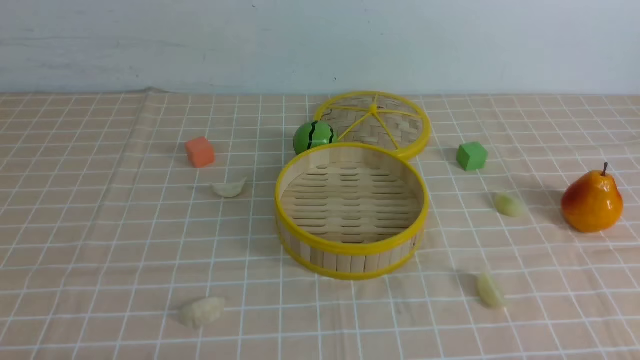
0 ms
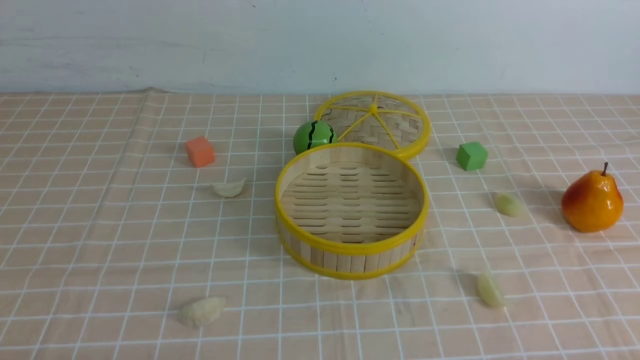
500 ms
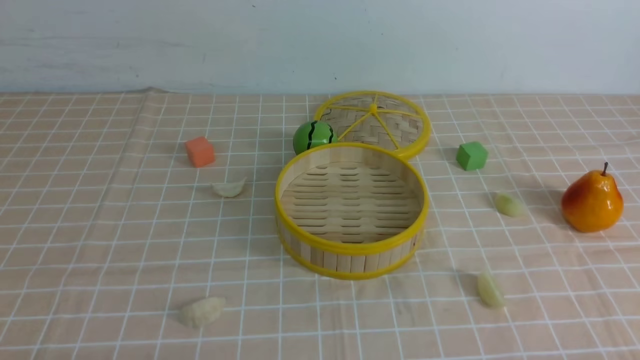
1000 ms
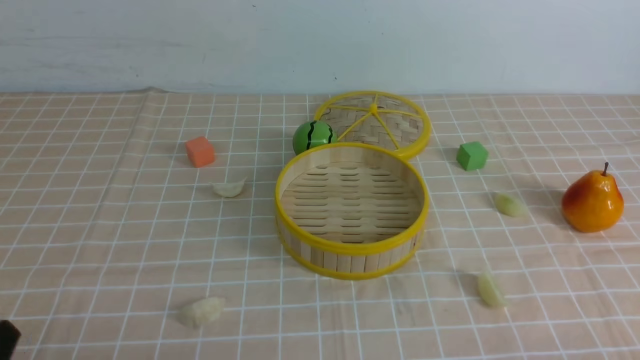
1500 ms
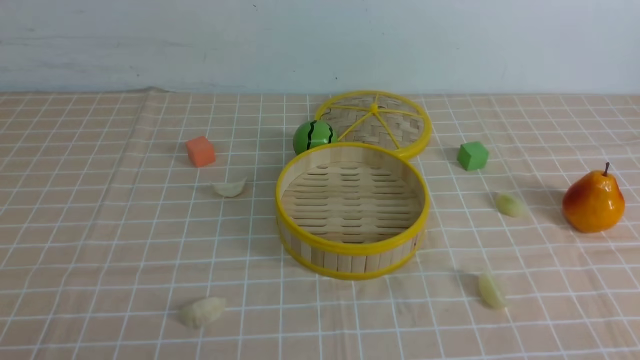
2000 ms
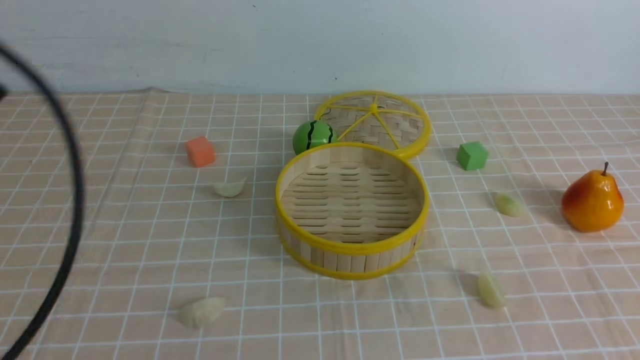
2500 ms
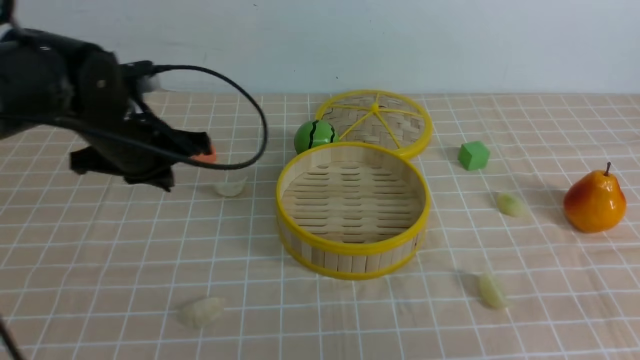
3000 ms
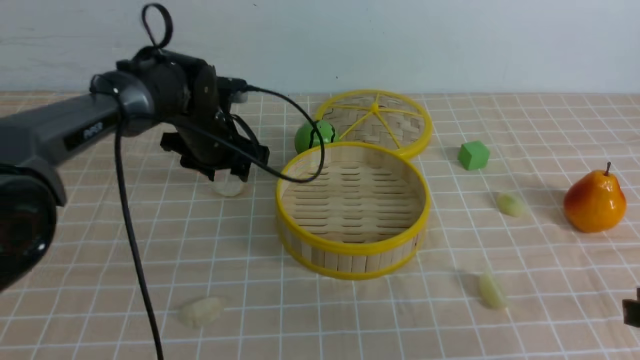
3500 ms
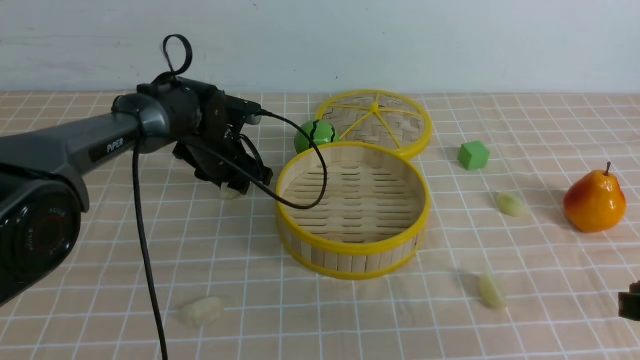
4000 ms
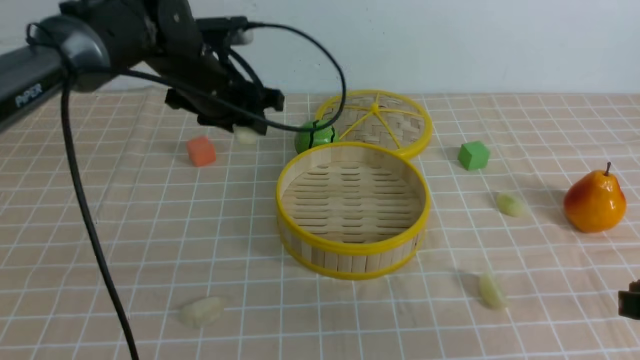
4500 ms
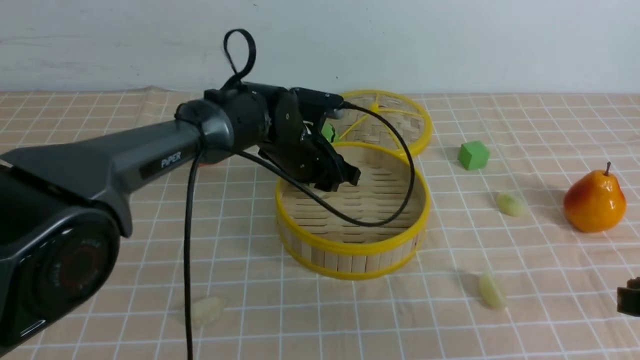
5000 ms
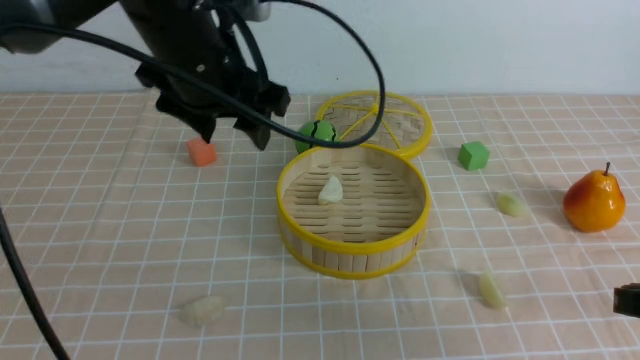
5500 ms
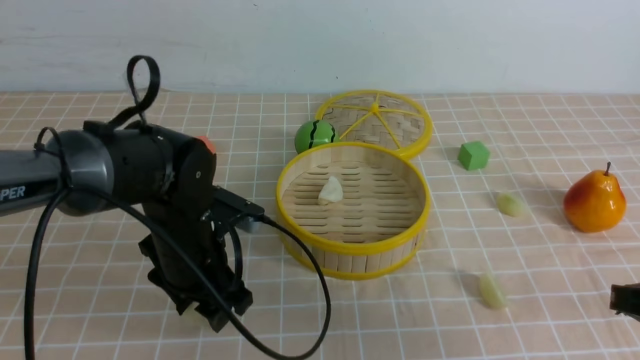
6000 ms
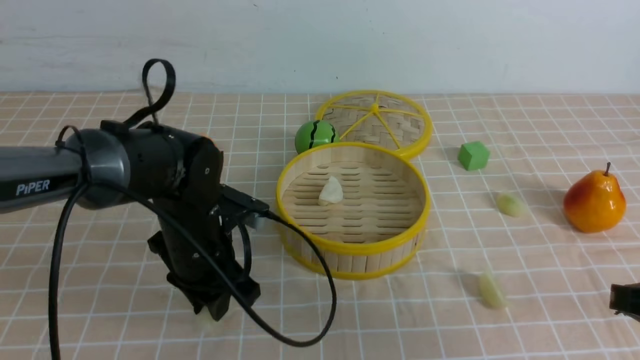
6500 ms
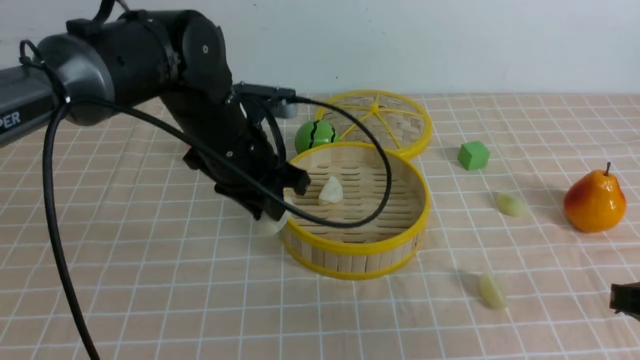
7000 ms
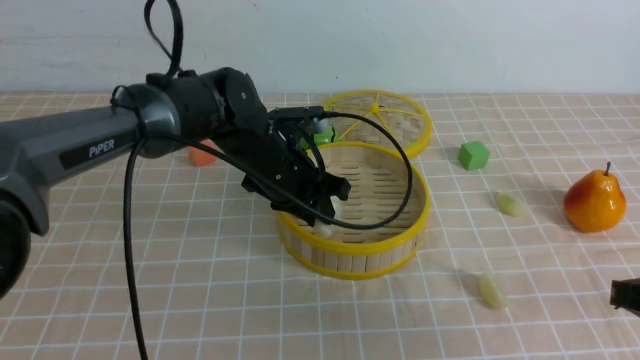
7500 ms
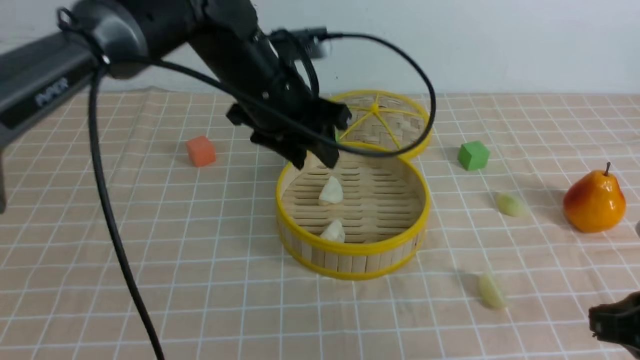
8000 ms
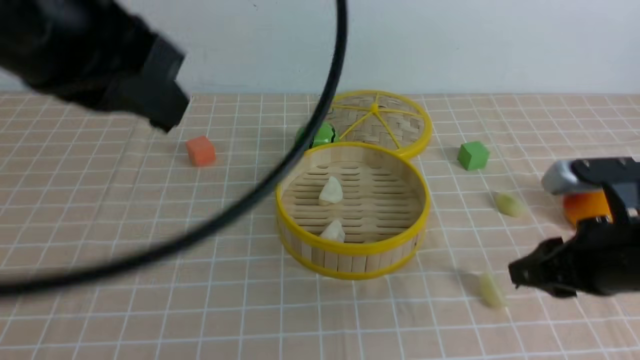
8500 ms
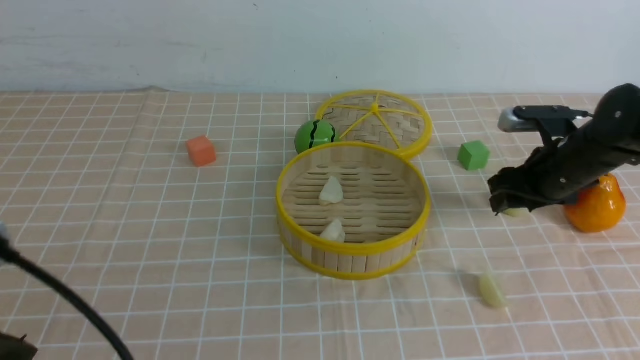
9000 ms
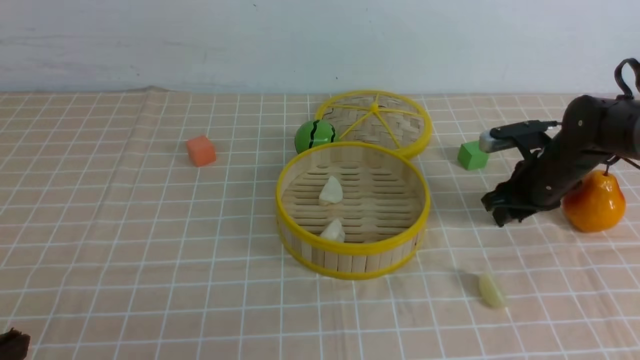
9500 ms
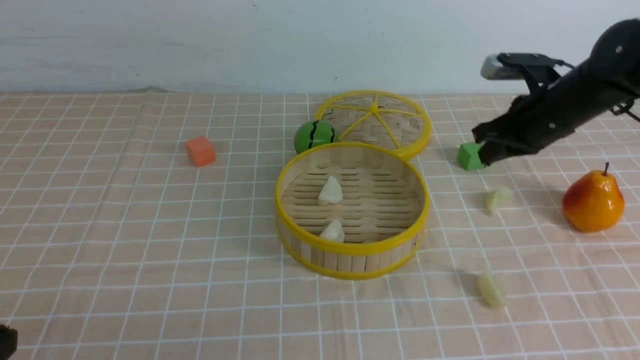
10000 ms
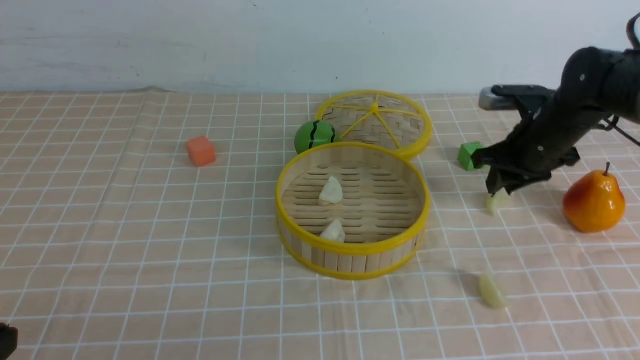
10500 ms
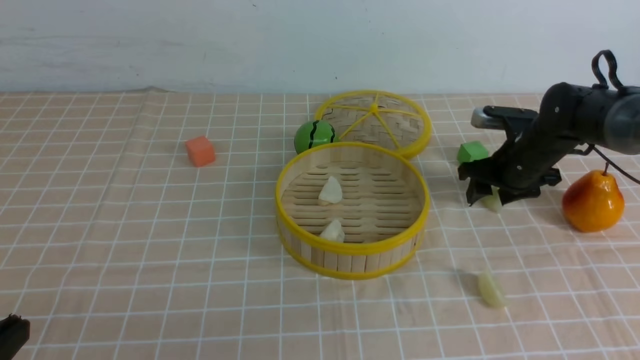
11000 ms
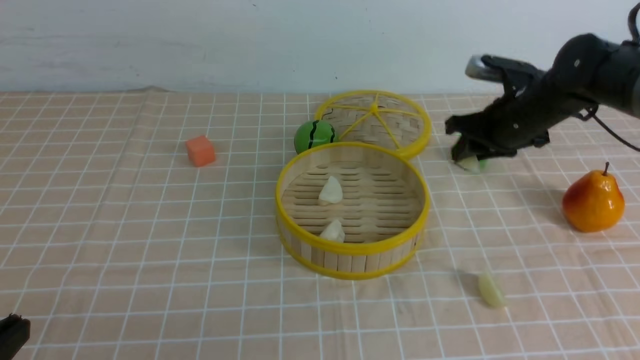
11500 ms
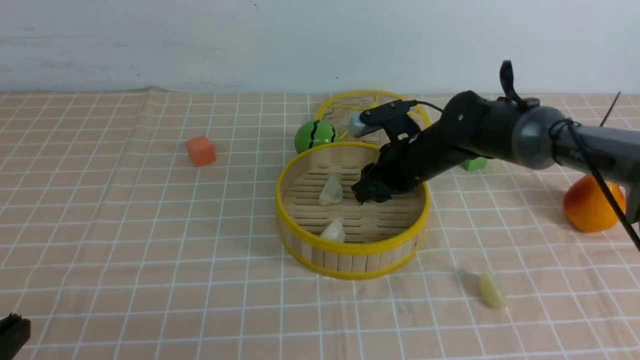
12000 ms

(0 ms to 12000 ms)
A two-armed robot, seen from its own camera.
Task of the whole recording: put the dumplings into the steamer on the table with the brown tablecloth.
Step, 0 ms - 4000 ms: use the left arm to grab a dumpling.
Step, 4500 ms - 5000 ms: use the left arm to put the dumpling into the steamer.
Step, 5500 ms - 6000 ms: use the left arm to grab a dumpling.
Step, 6500 ms - 7500 ms: use the left arm to put the dumpling into the steamer.
Step, 8000 ms - 11000 ms: use the right arm to grab a dumpling.
2000 ms - 4000 ms: The left gripper travels forward by some 40 cm, and closes, then opens again; the right gripper is displaced forward by approximately 15 cm, and closes.
4000 ms - 6000 ms: The left gripper is displaced backward by about 15 cm.
6000 ms - 8000 ms: The left gripper goes up and down, about 15 cm each way, reversing 2 times.
8000 ms - 10000 ms: The left gripper moves backward and to the left, about 35 cm, and closes; the right gripper travels forward by approximately 30 cm, and opens, then closes again.
10000 ms - 12000 ms: The right gripper shifts about 10 cm to the left, and opens up.

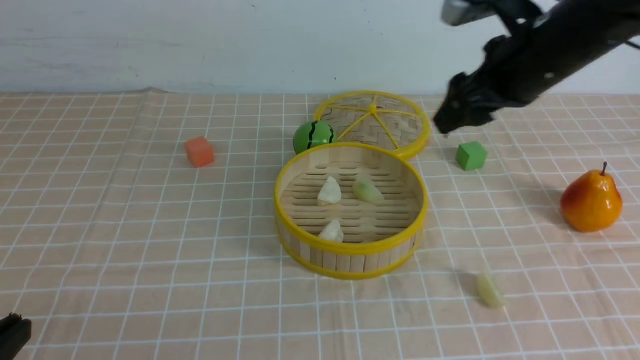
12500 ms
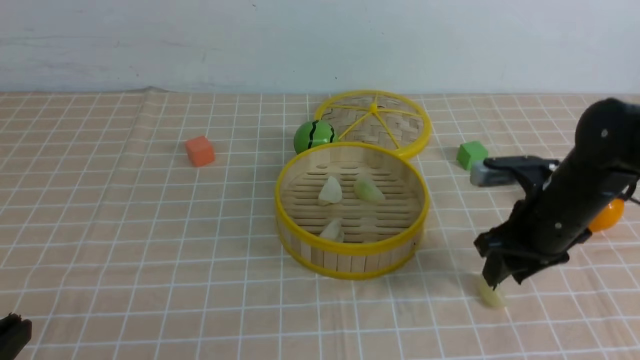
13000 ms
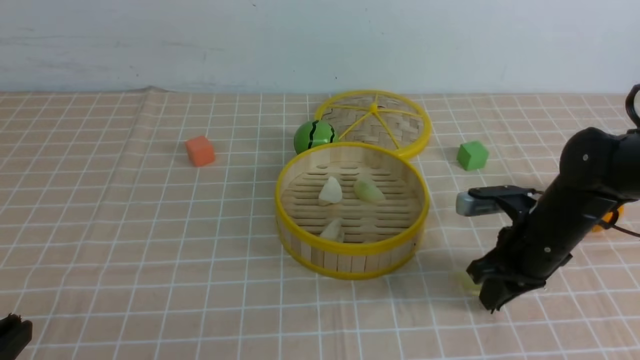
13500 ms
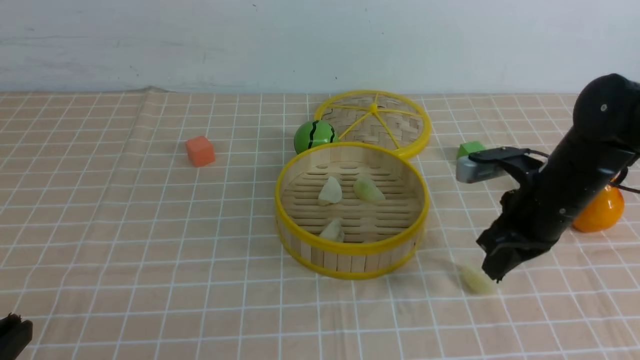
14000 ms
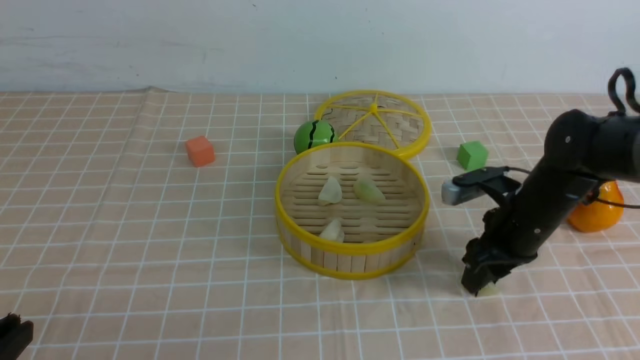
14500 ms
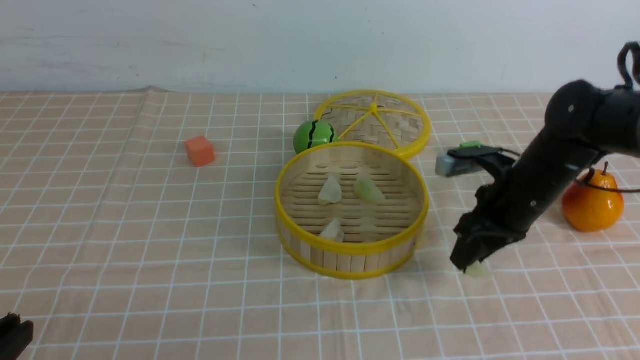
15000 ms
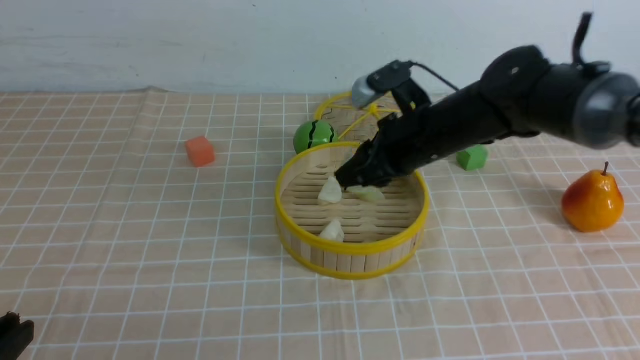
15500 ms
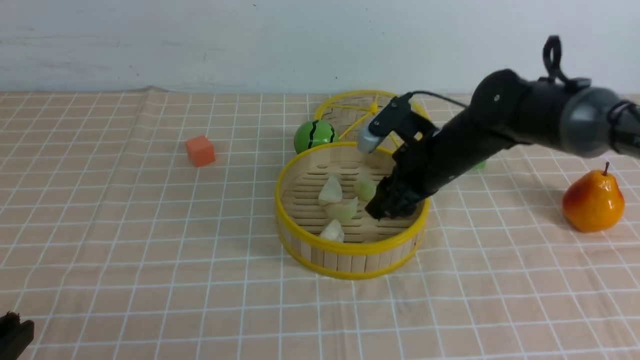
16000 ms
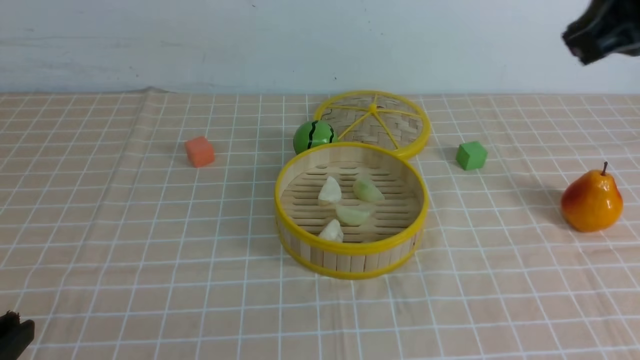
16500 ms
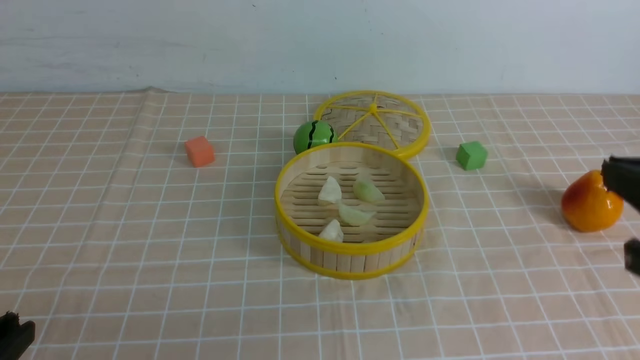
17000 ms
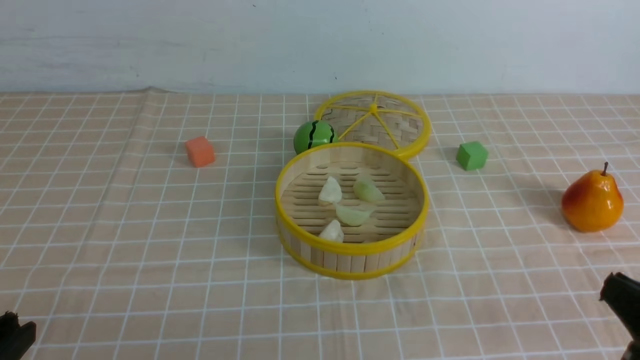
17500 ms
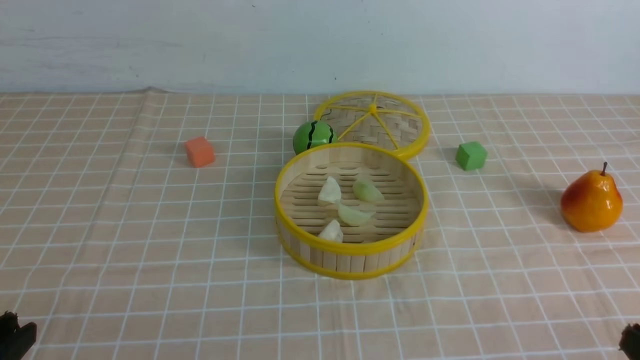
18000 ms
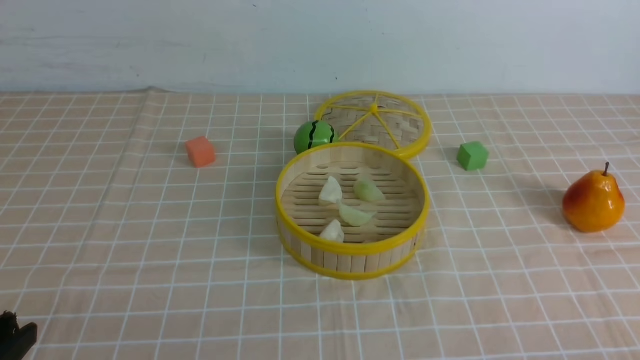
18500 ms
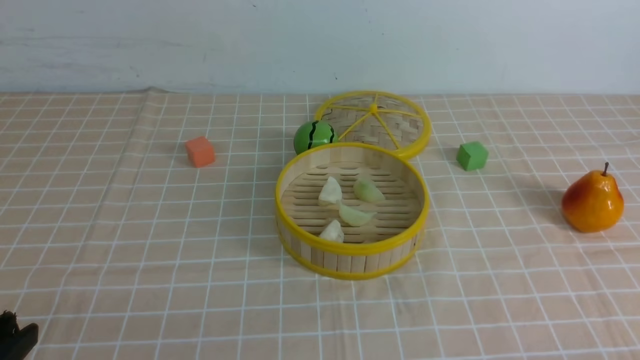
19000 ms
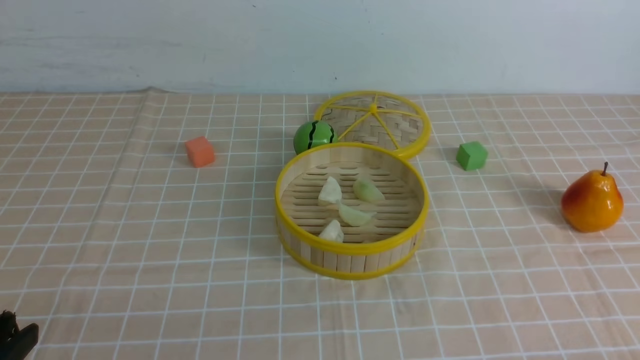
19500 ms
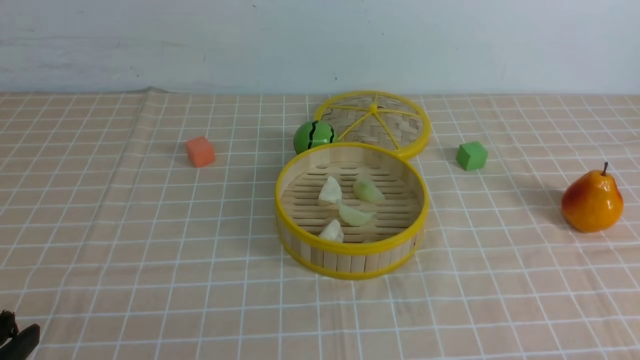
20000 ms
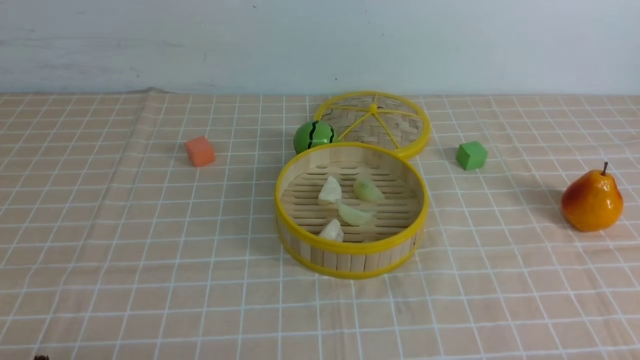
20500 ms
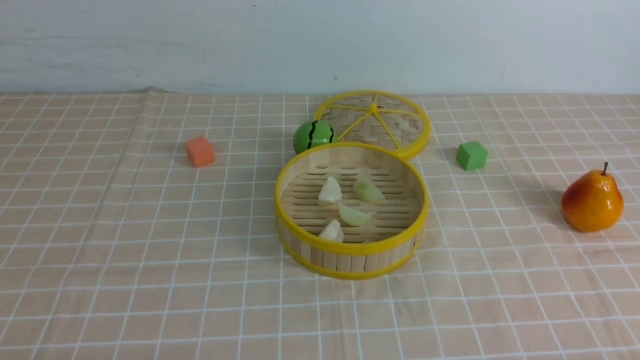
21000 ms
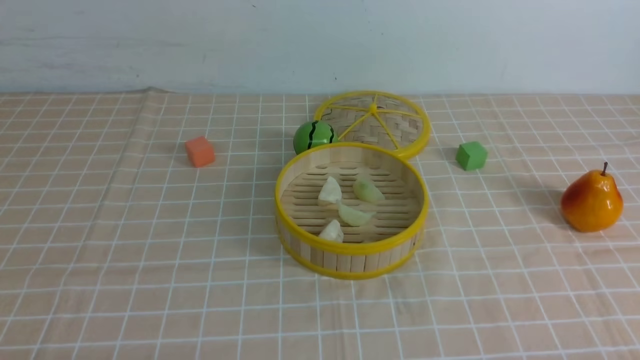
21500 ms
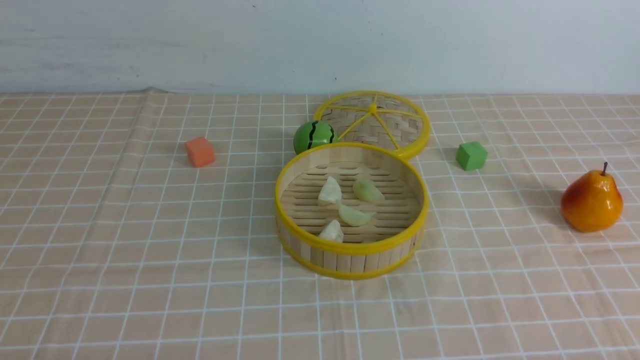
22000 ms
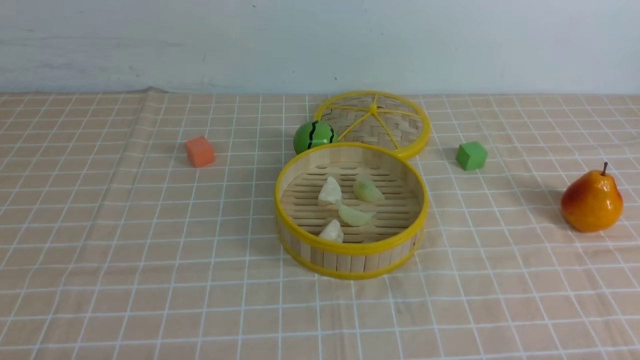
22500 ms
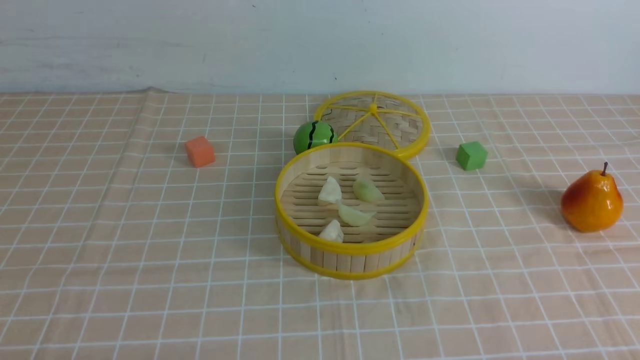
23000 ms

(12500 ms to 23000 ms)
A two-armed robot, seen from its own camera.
Task of the whole recording: put the dumplings into the steamer on the table with the brown tablecloth.
Step, 12500 ms - 14500 ms: use the right arm to grab a dumpling.
Step, 15000 ms - 16000 ms: use the right arm to put the dumpling into the steamer.
12500 ms - 14500 ms: The right gripper shifts approximately 15 cm downward, and closes up.
14500 ms - 16500 ms: The right gripper is displaced upward and backward by approximately 30 cm, and closes.
16500 ms - 19000 ms: The right gripper shifts roughly 35 cm downward and backward.
21000 ms - 23000 ms: Neither gripper changes place.
